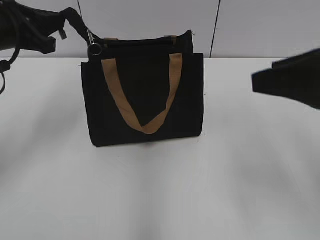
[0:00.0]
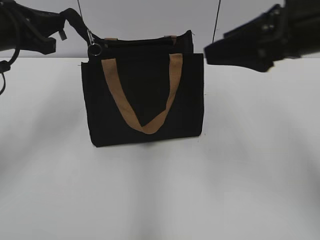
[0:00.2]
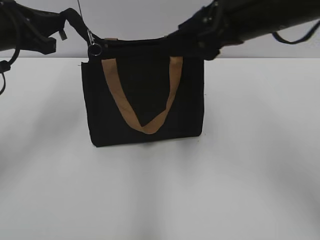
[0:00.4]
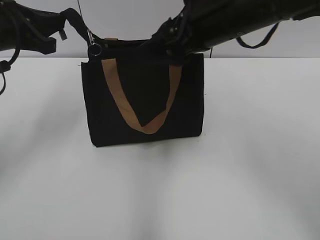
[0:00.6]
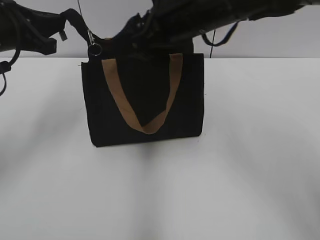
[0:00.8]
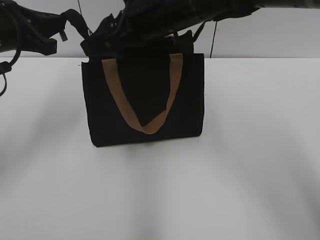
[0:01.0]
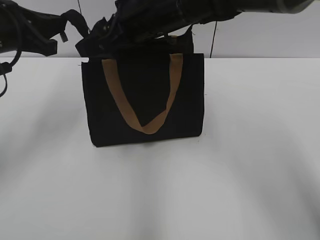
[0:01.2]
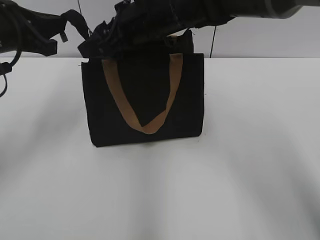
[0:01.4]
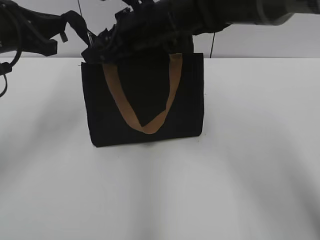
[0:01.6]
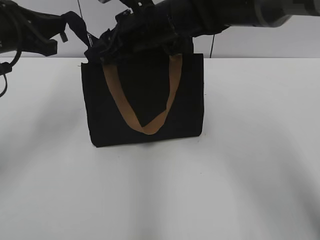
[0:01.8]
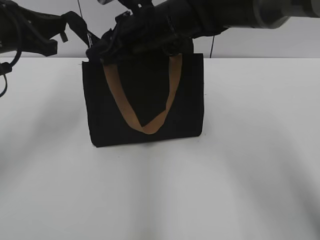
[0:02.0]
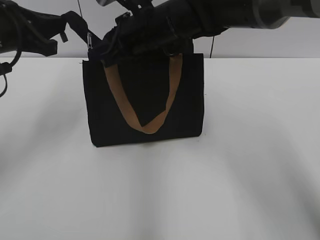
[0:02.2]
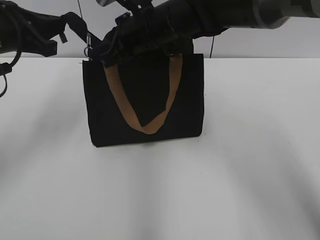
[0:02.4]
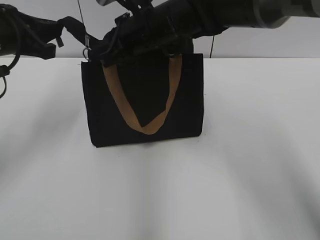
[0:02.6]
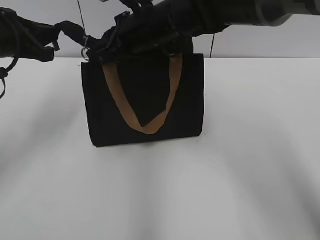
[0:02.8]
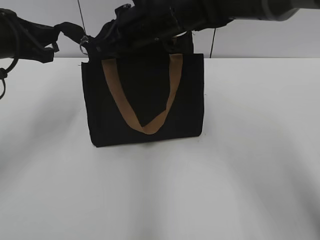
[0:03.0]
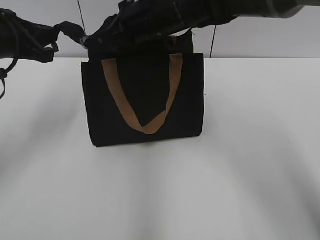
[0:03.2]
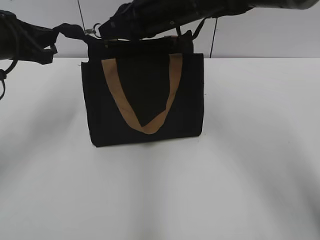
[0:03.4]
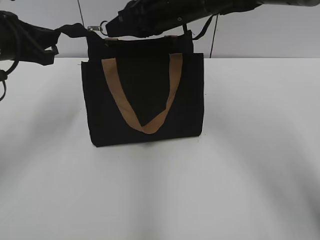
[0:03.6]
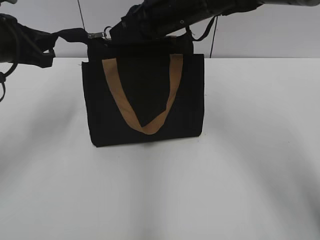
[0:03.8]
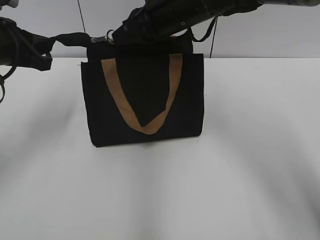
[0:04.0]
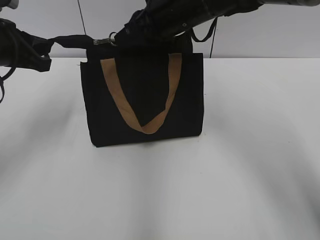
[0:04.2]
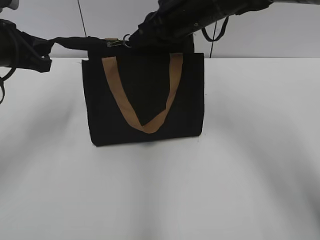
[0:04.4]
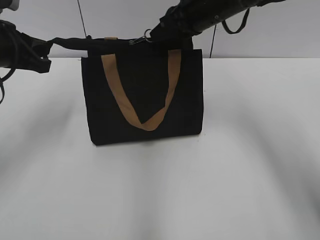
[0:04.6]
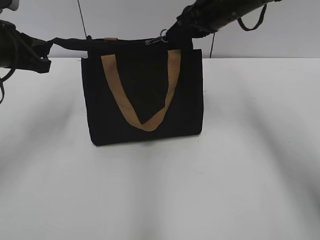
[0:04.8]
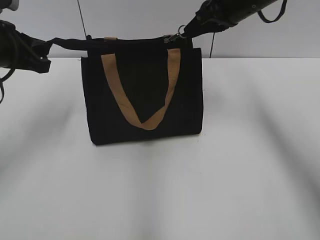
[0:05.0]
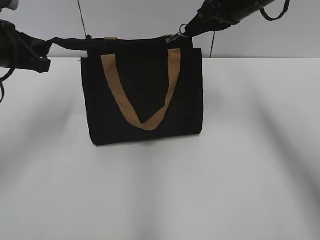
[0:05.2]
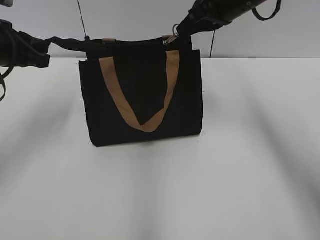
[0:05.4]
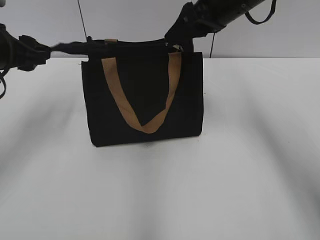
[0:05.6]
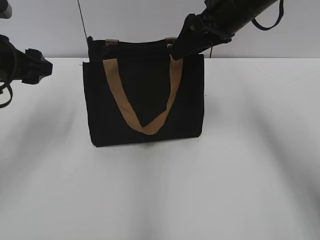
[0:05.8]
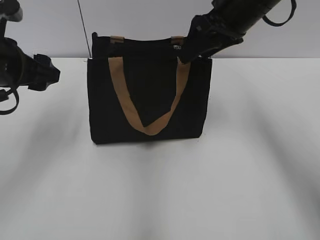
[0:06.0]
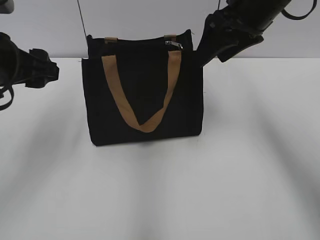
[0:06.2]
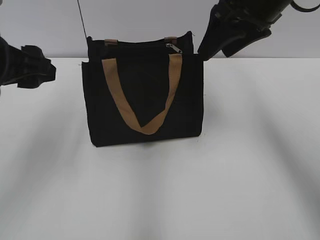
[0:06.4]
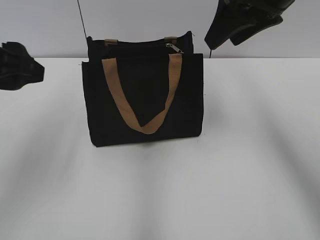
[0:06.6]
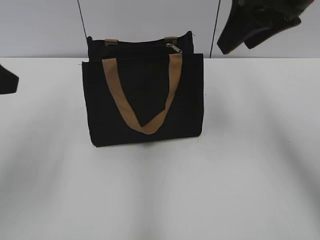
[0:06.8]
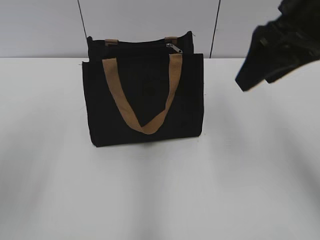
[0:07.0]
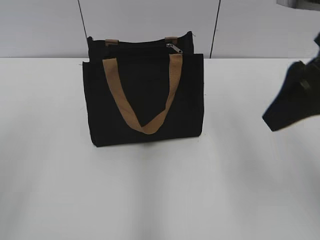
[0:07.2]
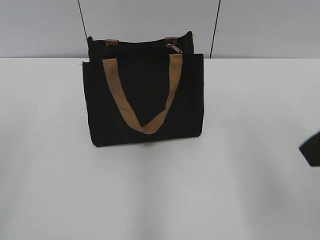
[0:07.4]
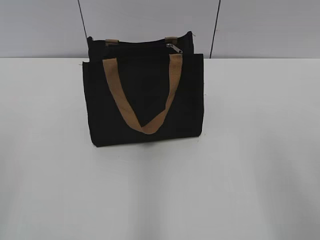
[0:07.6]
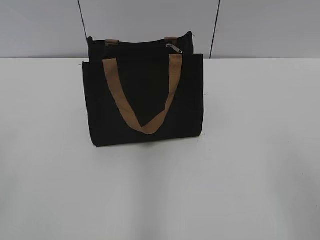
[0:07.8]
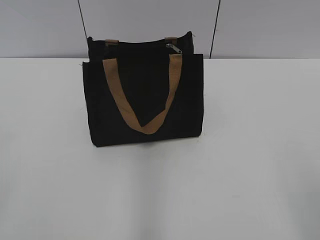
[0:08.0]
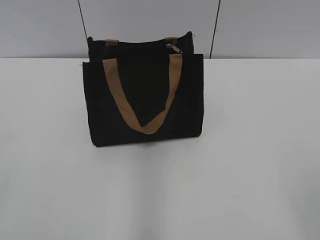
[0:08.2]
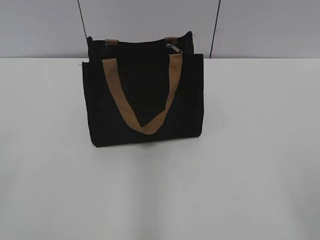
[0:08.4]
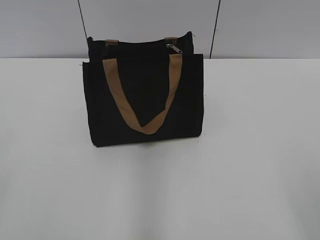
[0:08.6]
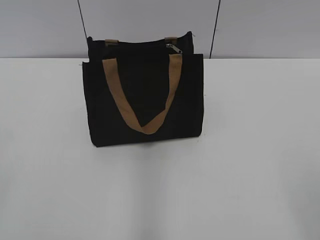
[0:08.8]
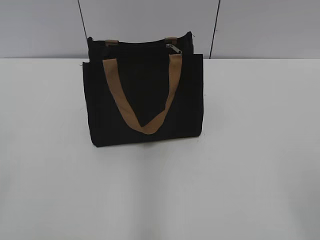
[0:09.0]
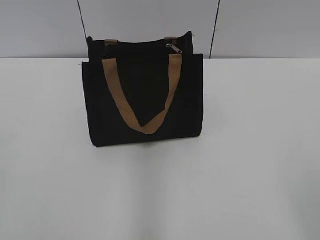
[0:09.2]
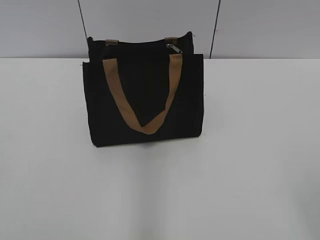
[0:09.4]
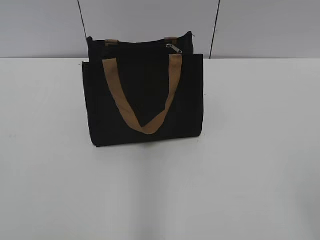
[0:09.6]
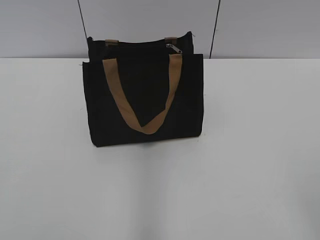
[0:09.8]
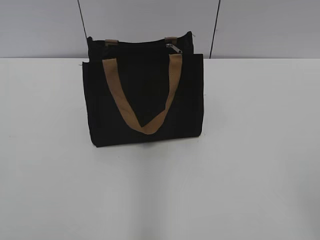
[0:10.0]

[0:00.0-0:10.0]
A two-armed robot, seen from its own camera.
Step, 0:00.0 to 0:05.4: Zip up the bag with your right hand.
0:00.0 to 0:01.4: The right gripper goes about 30 cm to the left and forward.
0:01.4 to 0:02.8: The right gripper closes its fingers.
0:02.8 to 0:04.2: The right gripper changes place by some 5 cm.
0:04.2 to 0:05.8: The right gripper moves to the right, some 10 cm, and opens its fingers; the left gripper opens.
0:05.8 to 0:07.2: The left gripper shifts roughly 20 cm backward and upward. The right gripper goes approximately 15 cm backward.
0:07.2 to 0:08.6: The right gripper shifts roughly 25 cm backward.

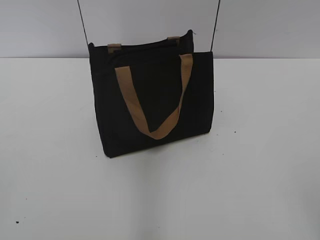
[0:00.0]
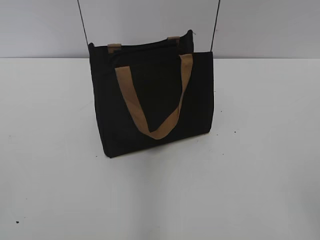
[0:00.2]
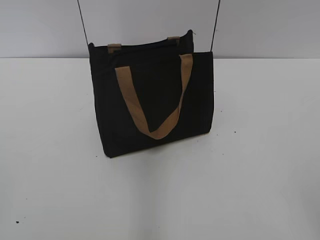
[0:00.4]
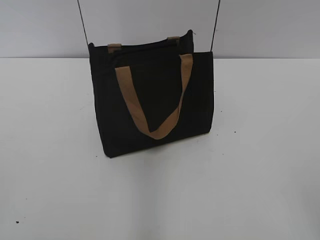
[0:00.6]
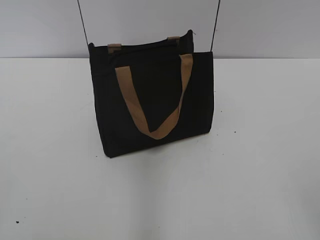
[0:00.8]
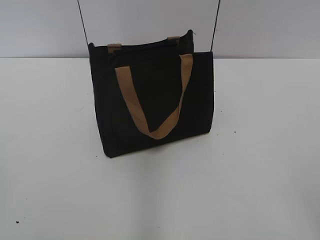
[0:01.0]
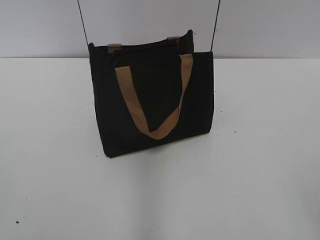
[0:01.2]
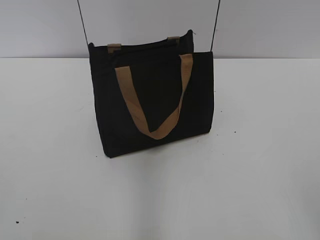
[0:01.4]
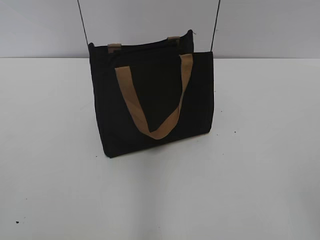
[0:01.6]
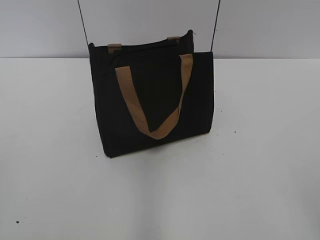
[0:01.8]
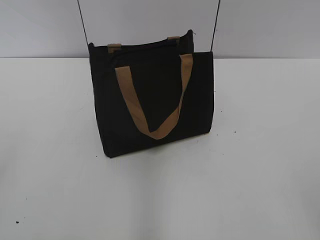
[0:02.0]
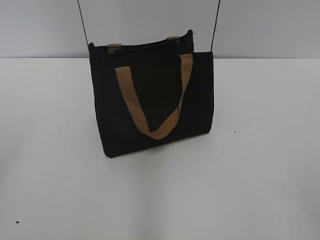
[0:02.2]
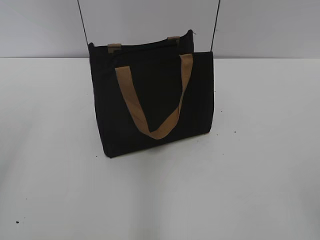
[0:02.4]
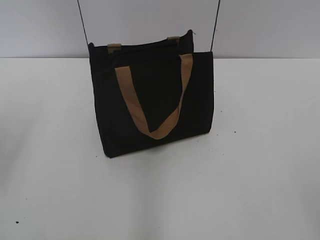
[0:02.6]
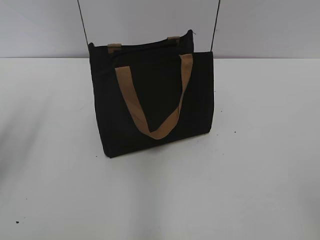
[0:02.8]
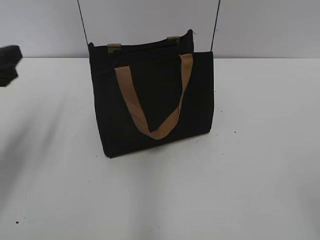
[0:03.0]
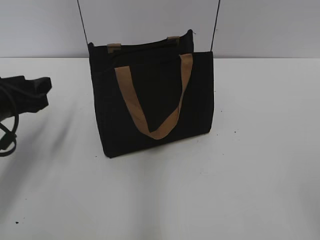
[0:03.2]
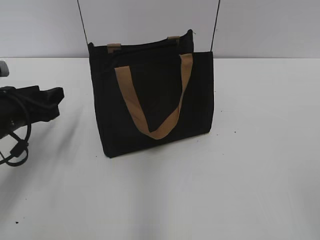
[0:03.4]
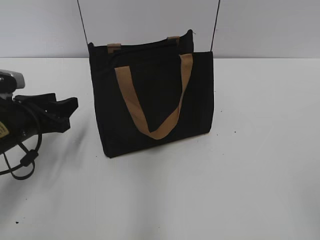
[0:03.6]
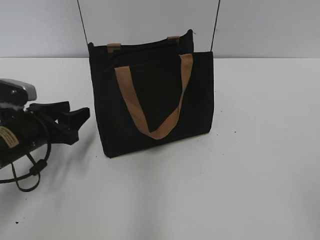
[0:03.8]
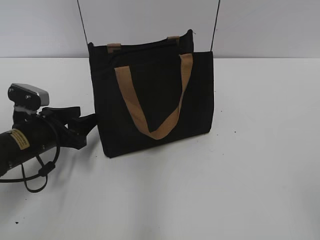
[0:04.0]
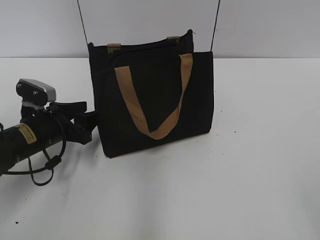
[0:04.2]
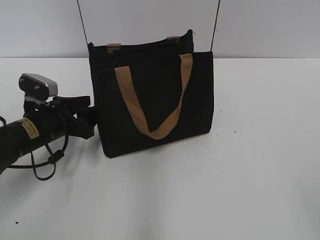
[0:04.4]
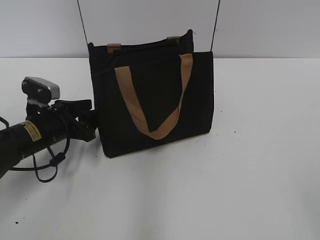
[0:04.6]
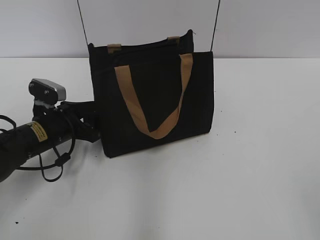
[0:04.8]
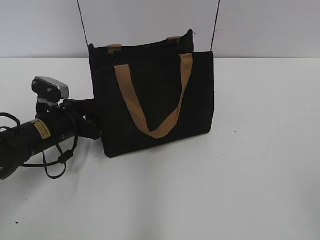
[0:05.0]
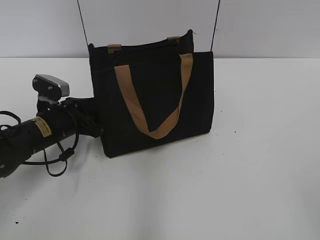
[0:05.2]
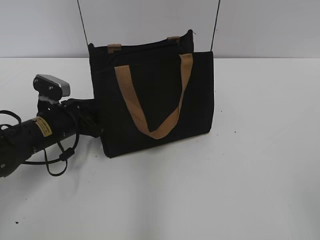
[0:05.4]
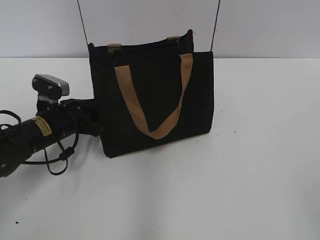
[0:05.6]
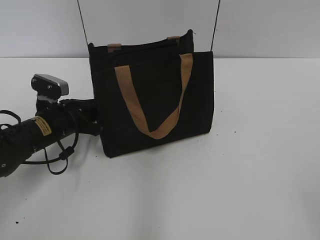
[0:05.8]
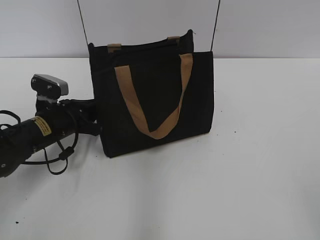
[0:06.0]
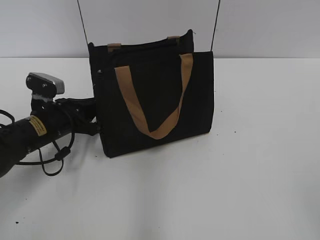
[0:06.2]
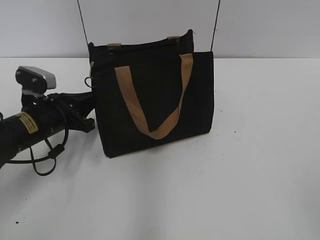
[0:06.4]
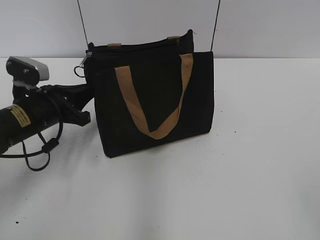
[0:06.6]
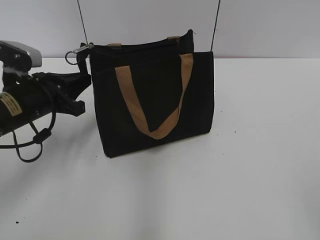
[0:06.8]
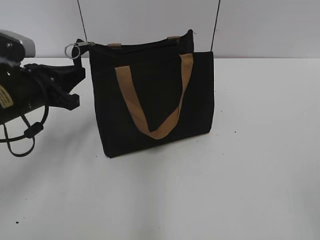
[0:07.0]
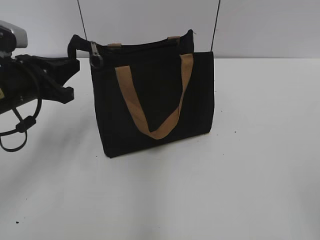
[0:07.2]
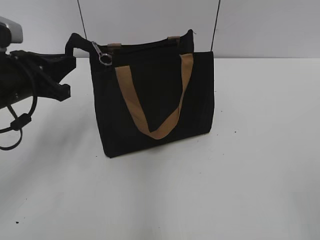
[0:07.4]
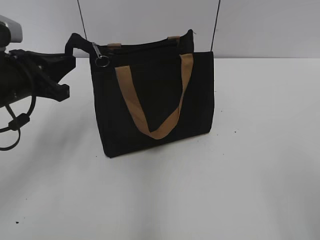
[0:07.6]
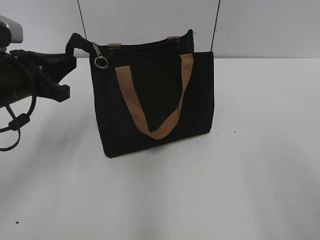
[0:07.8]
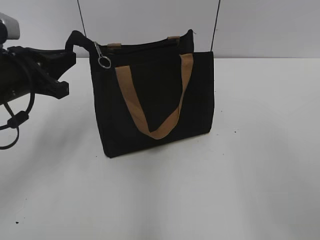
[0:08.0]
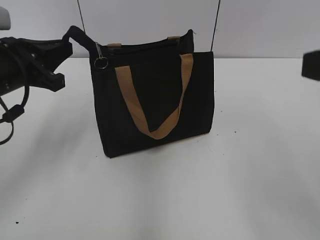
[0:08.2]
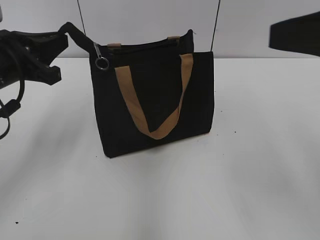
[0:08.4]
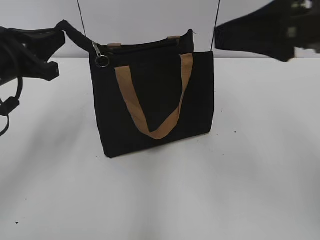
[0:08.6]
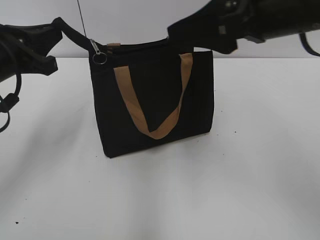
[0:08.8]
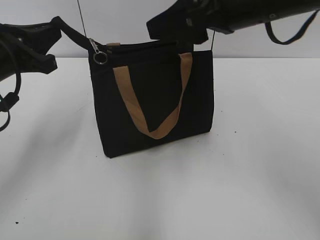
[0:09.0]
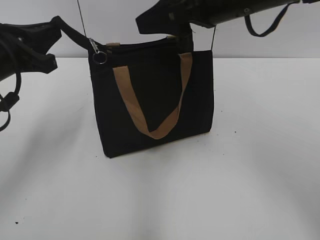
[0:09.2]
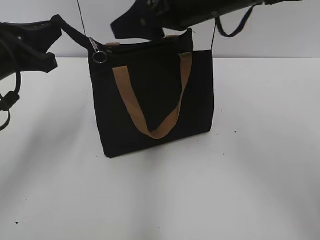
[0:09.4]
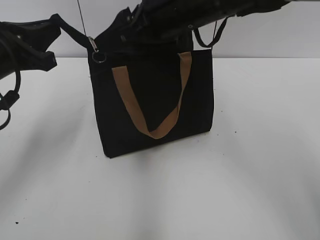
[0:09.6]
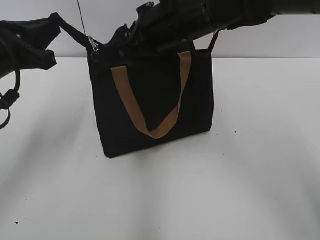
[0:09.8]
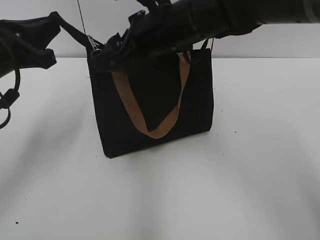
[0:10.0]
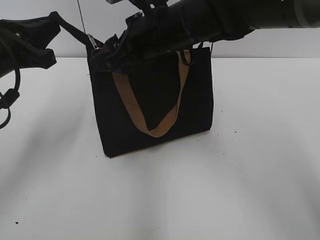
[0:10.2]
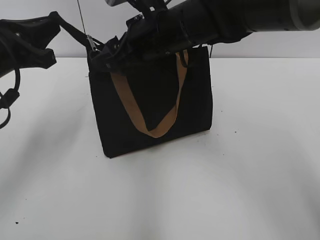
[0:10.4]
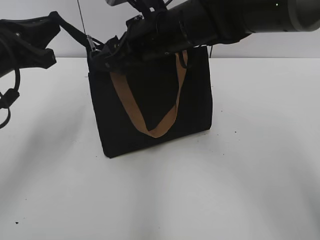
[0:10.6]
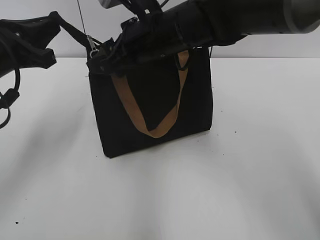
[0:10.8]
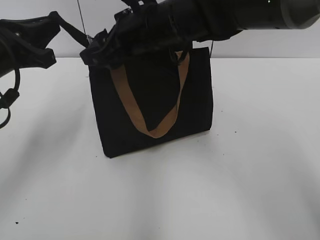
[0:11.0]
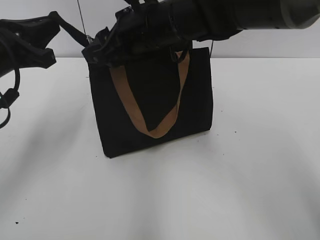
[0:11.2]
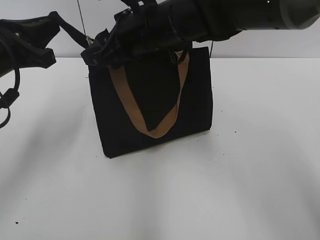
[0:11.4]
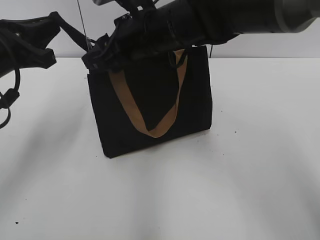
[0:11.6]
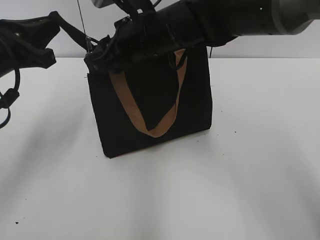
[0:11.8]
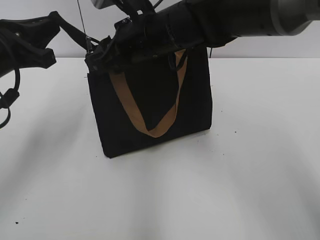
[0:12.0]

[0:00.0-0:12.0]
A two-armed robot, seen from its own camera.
0:01.6 to 0:03.0: The left gripper goes some 25 cm forward, and opens its fingers.
0:03.0 to 0:04.4: The left gripper is displaced downward, to the right and forward by some 15 cm.
0:04.4 to 0:06.0: The left gripper closes its fingers.
0:06.0 to 0:07.6: The left gripper shifts approximately 15 cm upward.
0:07.6 to 0:09.0: The right gripper moves forward and to the left, some 30 cm.
0:09.0 to 0:10.4: The right gripper is displaced to the left, downward and forward by roughly 15 cm.
0:10.4 to 0:12.0: The right gripper closes its fingers.
